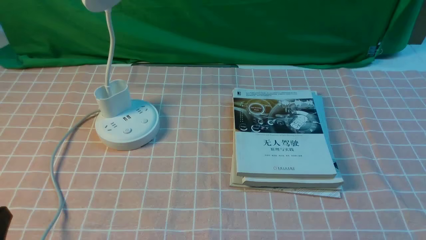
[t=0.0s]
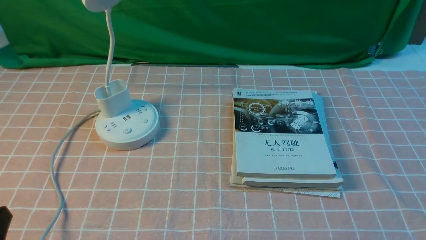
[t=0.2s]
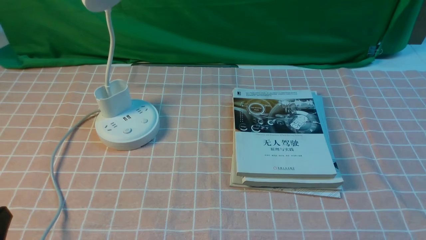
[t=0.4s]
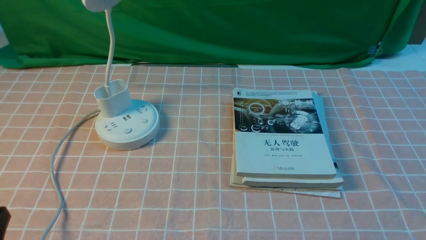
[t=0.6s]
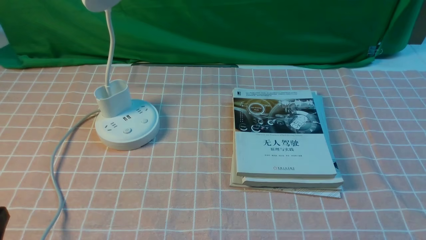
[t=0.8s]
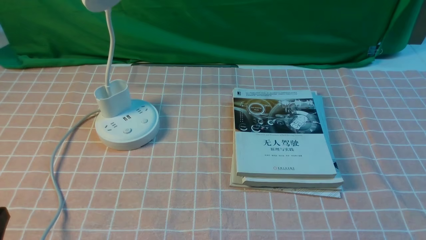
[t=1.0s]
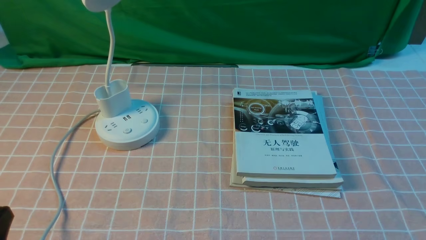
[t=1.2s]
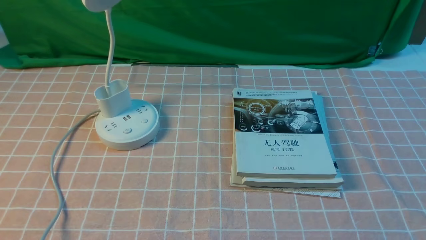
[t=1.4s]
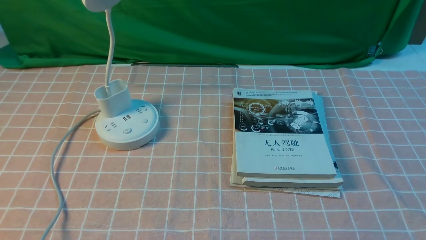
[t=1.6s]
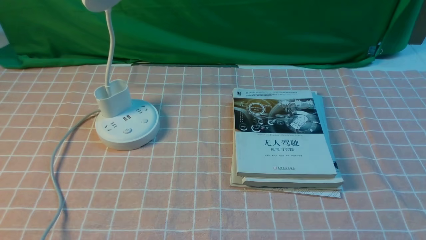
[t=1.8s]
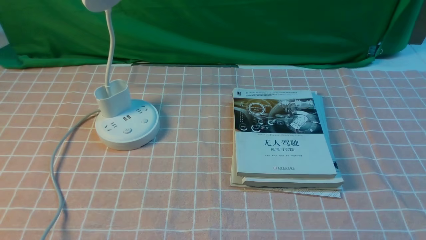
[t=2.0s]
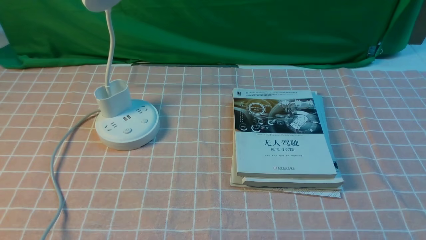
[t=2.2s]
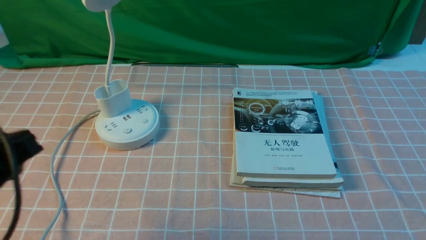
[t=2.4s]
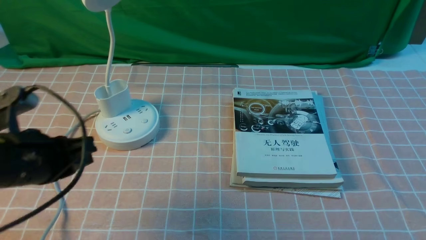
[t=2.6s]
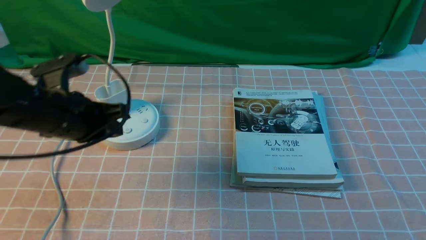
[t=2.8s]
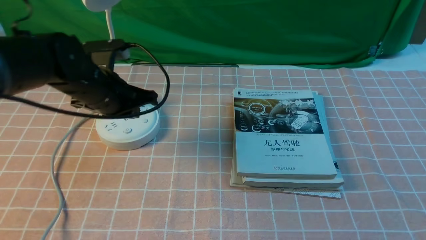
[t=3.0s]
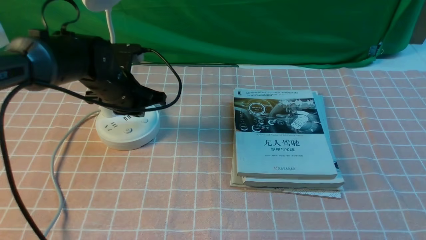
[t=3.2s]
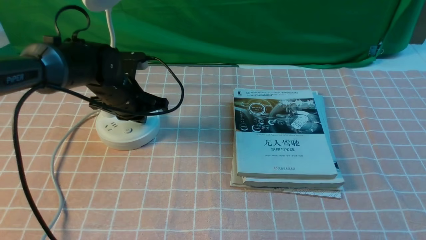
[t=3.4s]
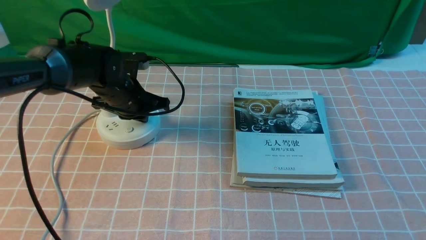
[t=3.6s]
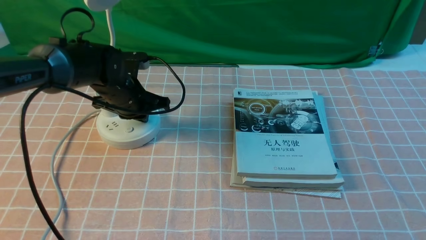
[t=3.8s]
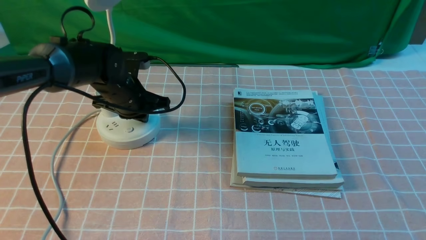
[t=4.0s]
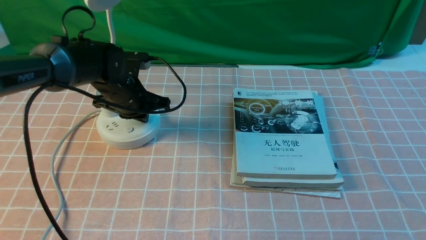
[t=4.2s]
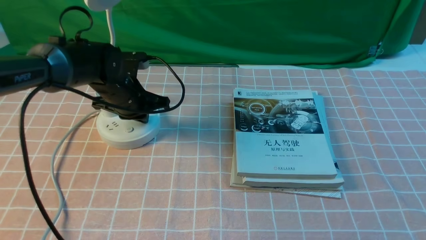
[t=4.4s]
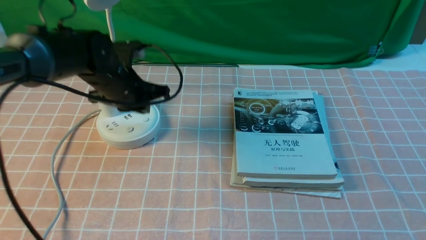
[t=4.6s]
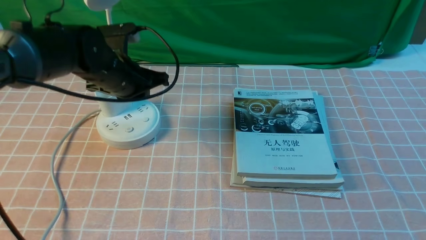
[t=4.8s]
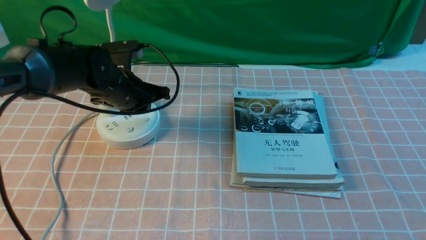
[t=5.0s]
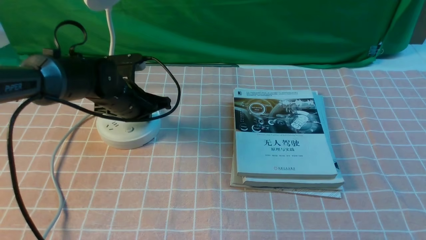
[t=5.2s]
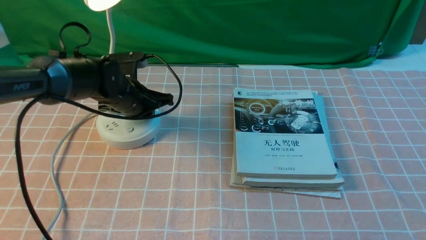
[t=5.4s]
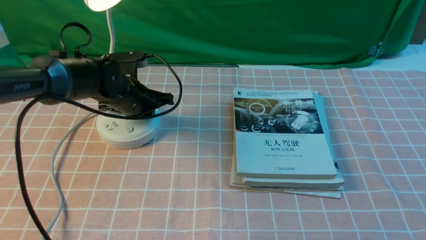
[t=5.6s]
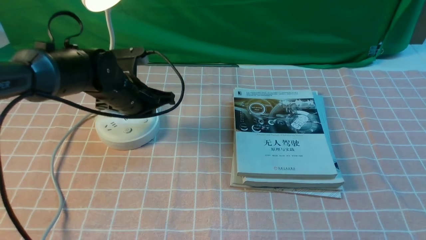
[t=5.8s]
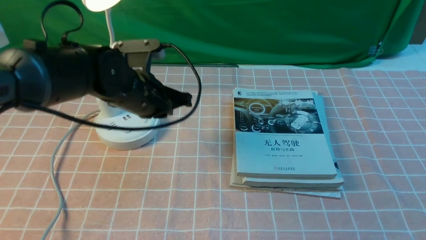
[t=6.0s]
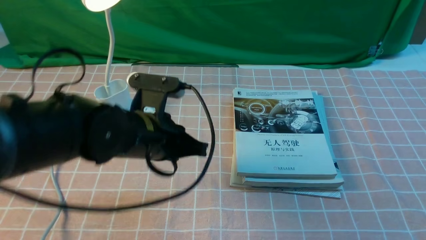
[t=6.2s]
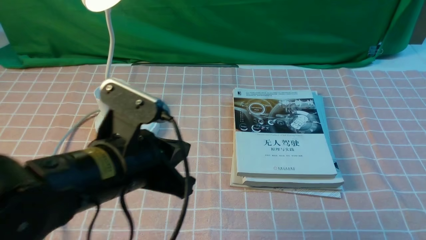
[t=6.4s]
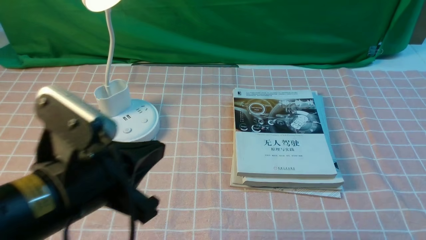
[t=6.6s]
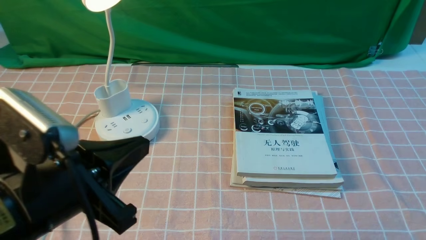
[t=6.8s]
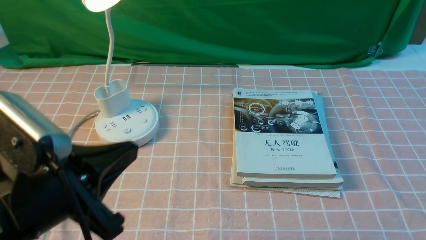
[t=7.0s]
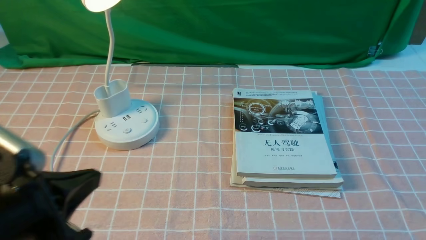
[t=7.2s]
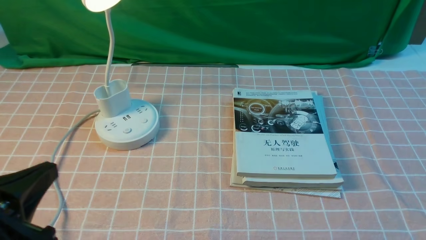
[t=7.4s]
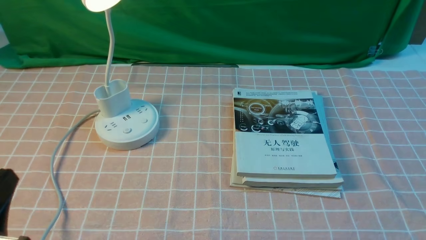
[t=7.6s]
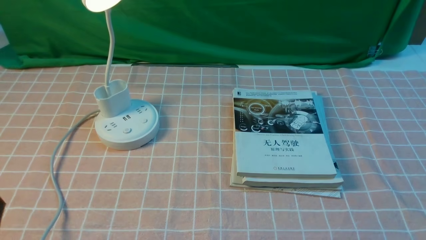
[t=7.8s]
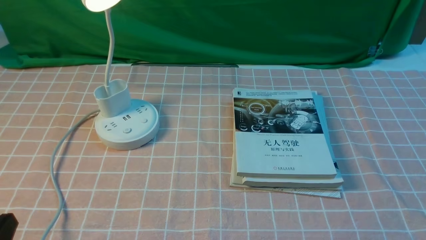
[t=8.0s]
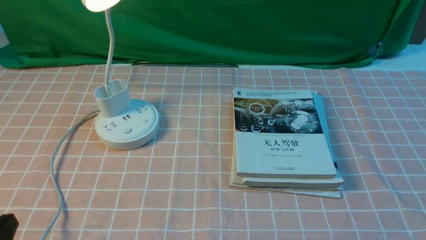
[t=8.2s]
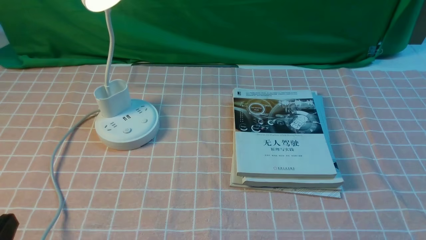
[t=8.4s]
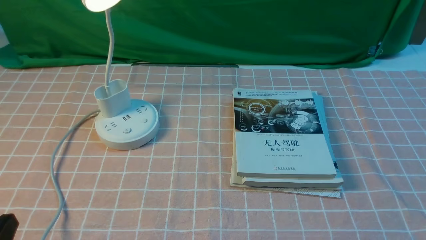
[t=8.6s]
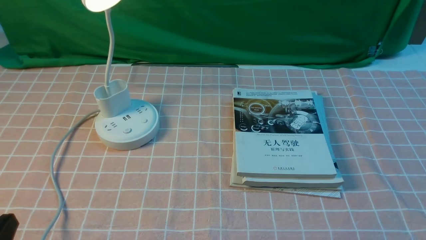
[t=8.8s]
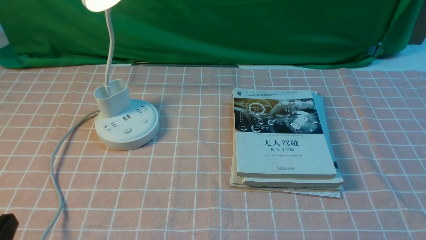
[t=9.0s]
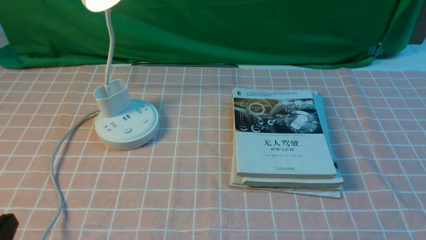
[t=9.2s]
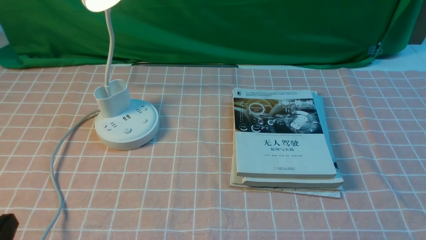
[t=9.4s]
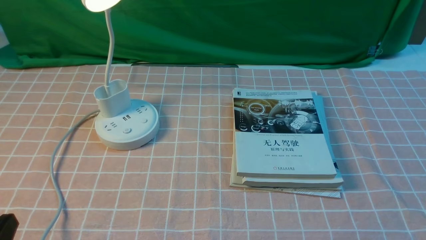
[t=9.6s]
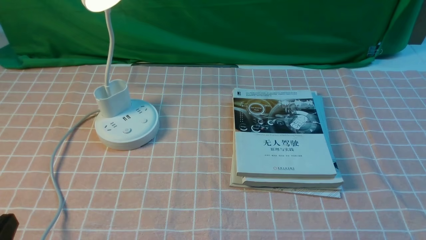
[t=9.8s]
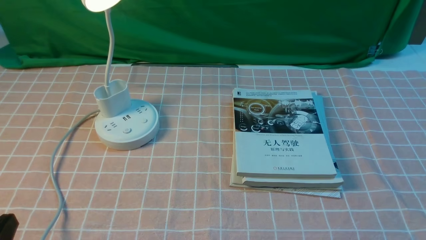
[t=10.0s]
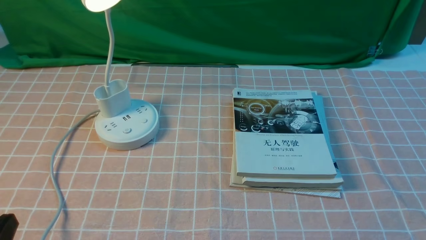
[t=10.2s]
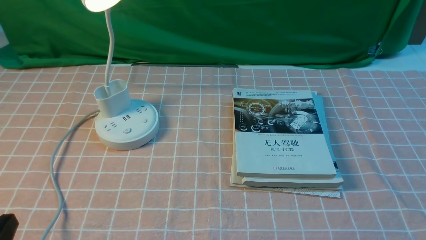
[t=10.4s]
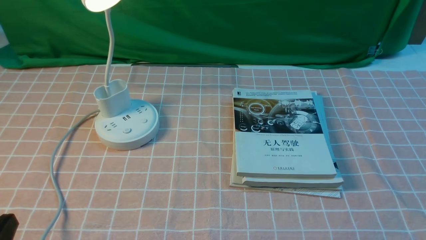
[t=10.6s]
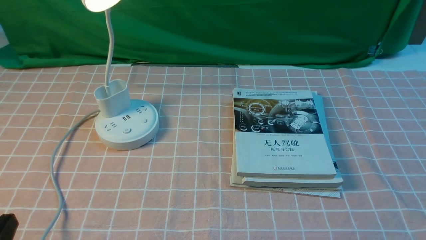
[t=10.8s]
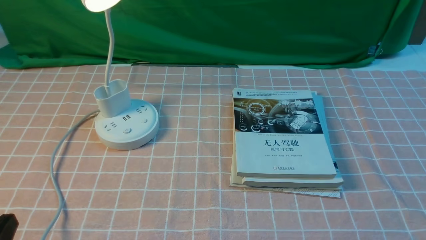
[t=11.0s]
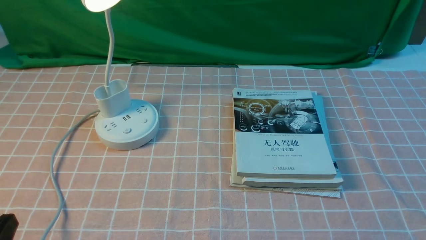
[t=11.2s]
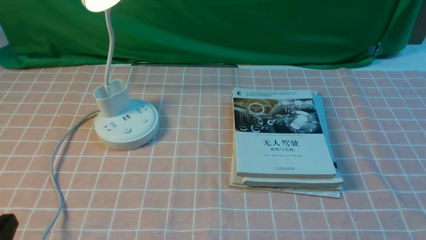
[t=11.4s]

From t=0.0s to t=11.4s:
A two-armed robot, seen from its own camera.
Step, from t=0.0s to t=5.6s: use the left arm to press the button switch on the lamp holder.
From t=1.4s to t=2.8s: The right gripper opens its fingers, while the left gripper travels forward by about 25 cm.
From t=2.8s to t=4.2s: The left gripper travels forward and downward by some 15 cm.
From t=4.2s to t=5.6s: There are only small adjustments of the grippers.
From t=5.6s to t=7.2s: The left gripper is displaced backward by about 30 cm.
From t=7.2s to t=8.6s: The left gripper moves downward, to the left and backward, roughly 10 cm.
From t=8.6s to t=11.4s: The two grippers keep their place.

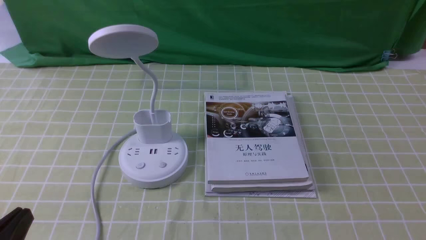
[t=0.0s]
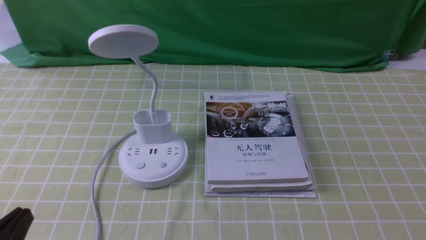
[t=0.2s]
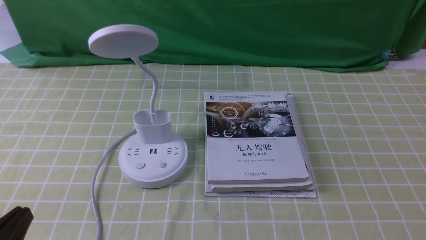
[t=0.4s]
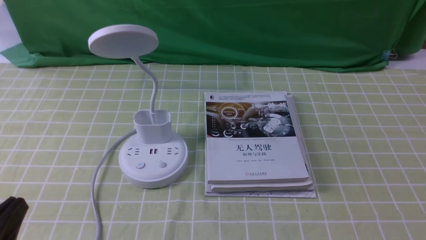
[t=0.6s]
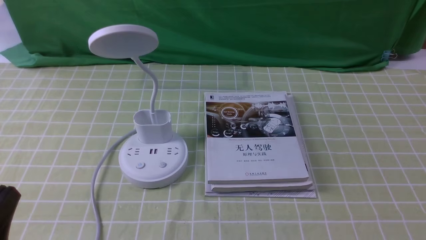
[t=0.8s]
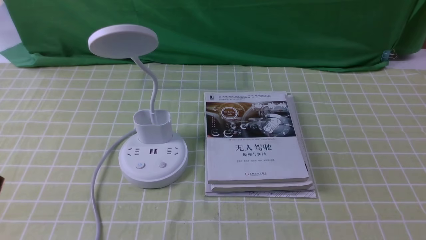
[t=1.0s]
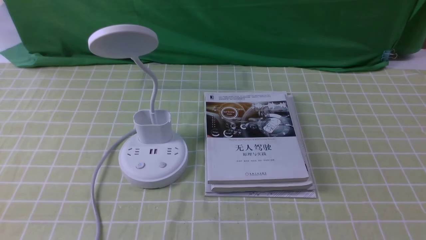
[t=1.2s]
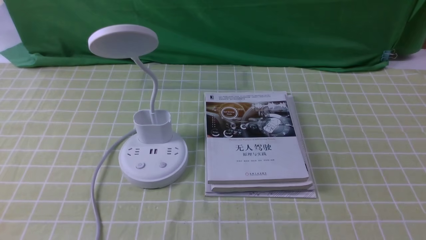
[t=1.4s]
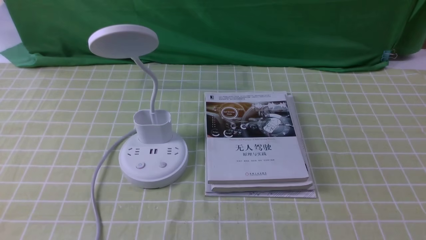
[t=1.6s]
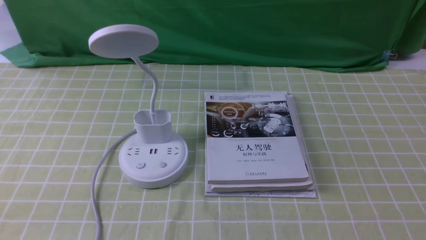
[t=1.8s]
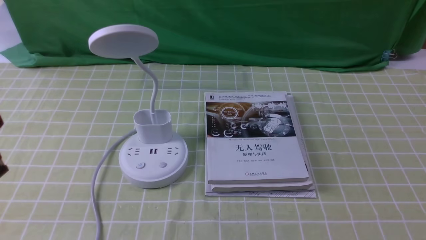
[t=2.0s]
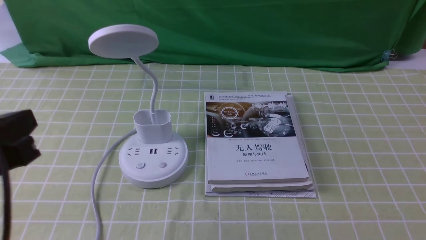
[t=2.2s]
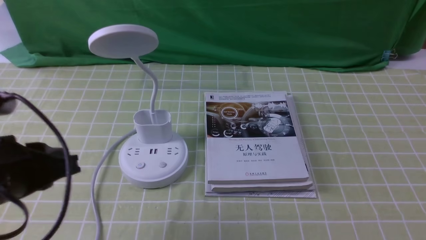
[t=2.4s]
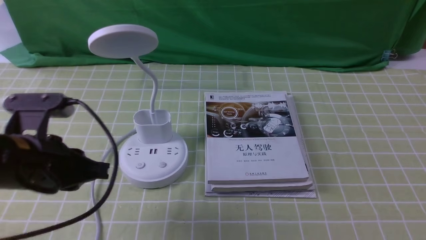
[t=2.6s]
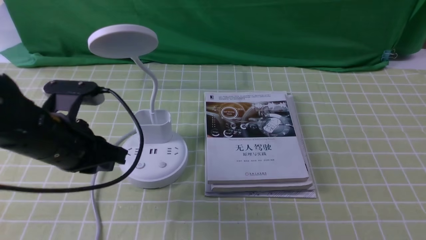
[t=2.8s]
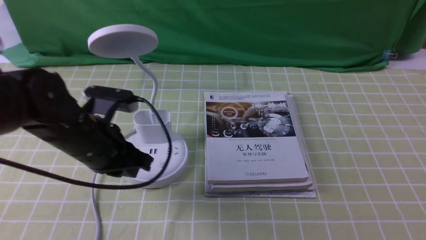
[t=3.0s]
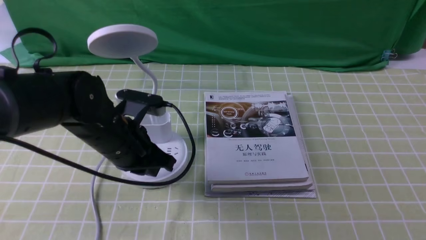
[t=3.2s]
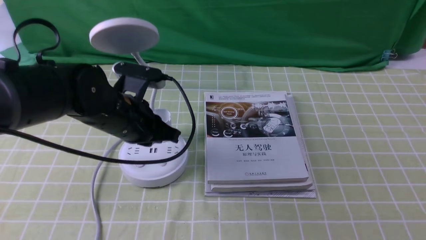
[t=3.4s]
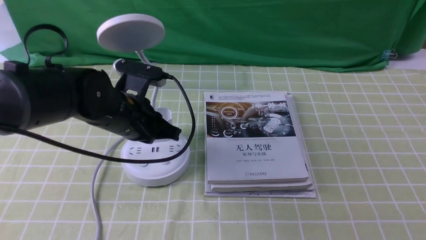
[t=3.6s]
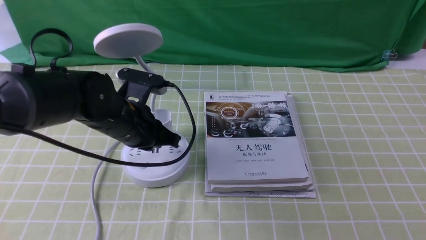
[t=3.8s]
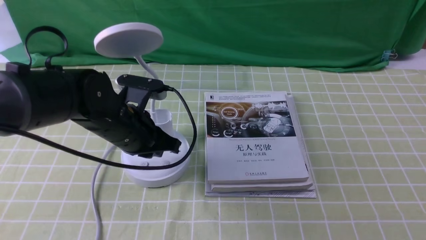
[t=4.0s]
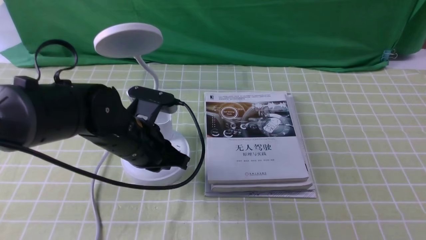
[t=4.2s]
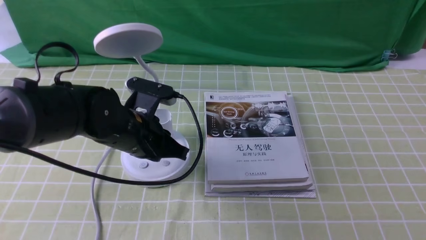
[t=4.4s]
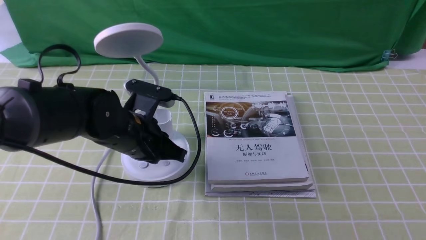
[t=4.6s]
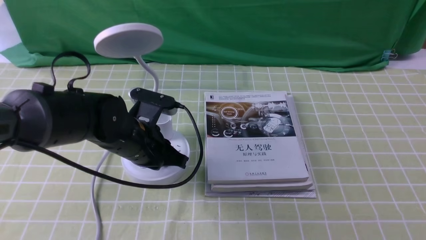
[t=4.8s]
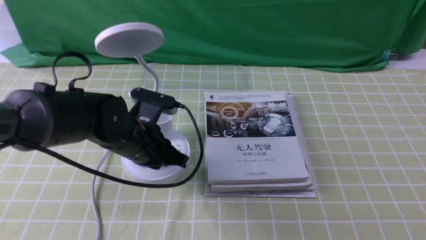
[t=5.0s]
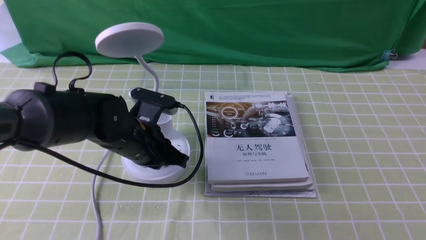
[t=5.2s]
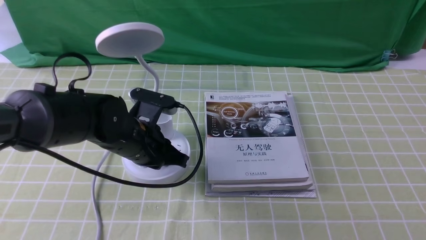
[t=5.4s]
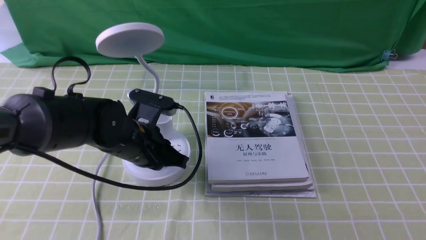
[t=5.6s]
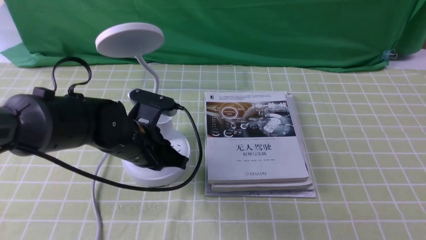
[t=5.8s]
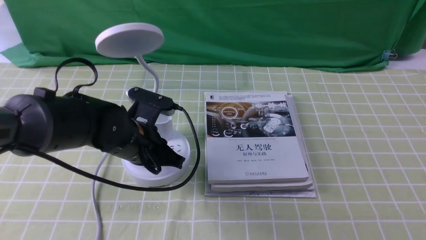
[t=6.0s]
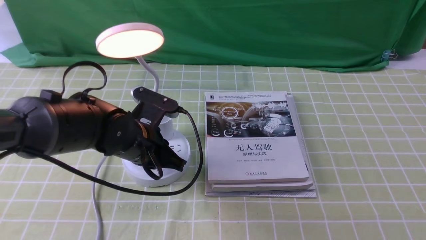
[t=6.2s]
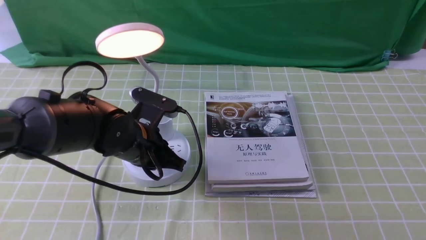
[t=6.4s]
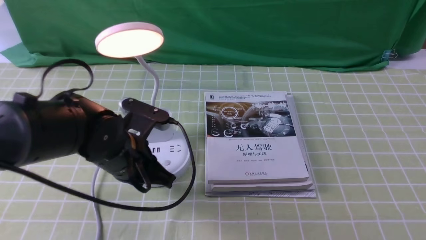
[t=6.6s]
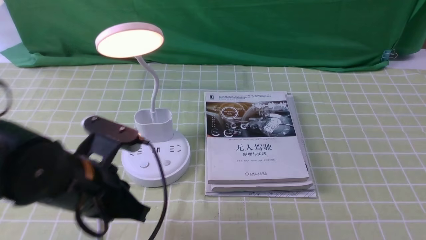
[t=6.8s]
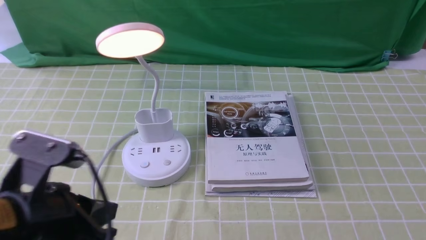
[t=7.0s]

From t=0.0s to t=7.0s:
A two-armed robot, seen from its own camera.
Step, from t=0.0s to t=6.6s: use the left arm to press the button switch on the lamp holder.
From t=1.4s to t=2.8s: The left gripper shifts some 20 cm forward.
From t=2.8s to t=4.2s: The left gripper moves forward and to the right, approximately 10 cm.
From t=4.2s to t=5.6s: The grippers make only small movements.
From t=5.6s to t=7.0s: The left gripper shifts approximately 15 cm backward and upward.
